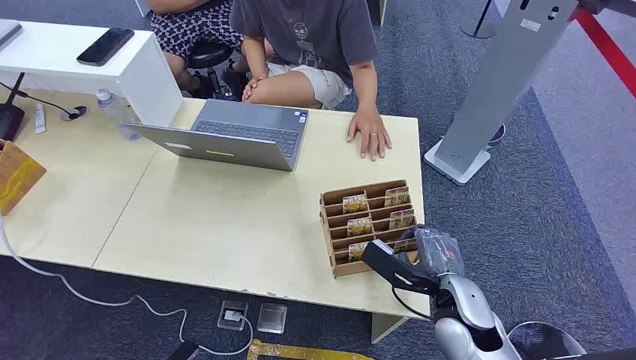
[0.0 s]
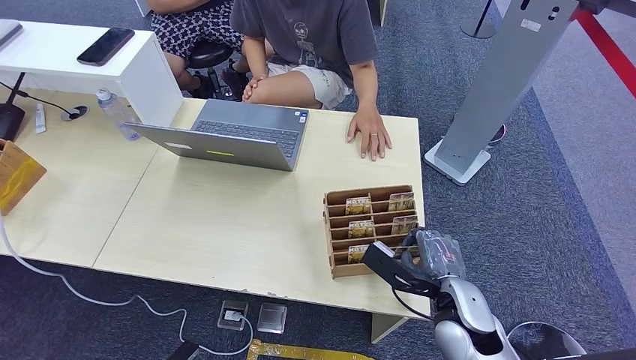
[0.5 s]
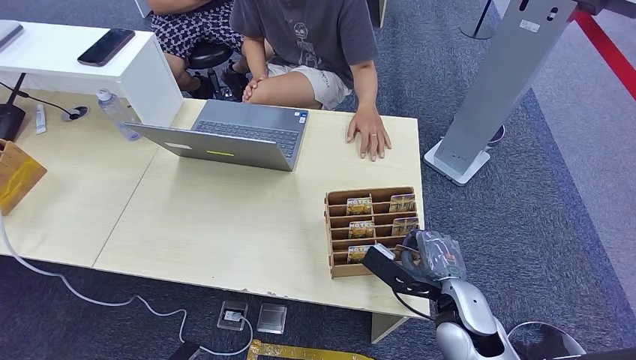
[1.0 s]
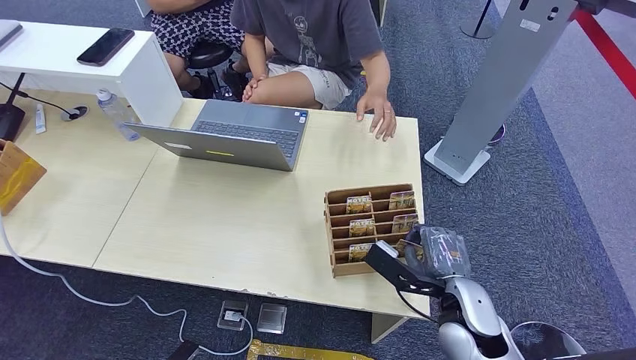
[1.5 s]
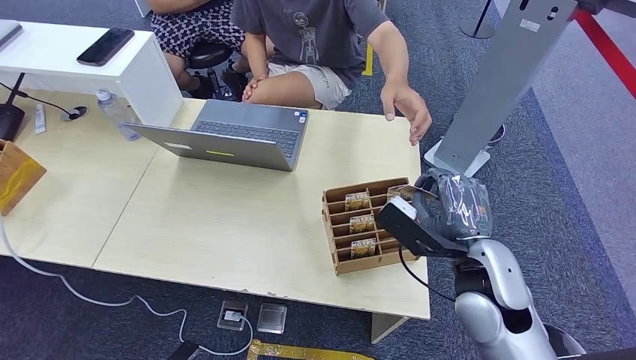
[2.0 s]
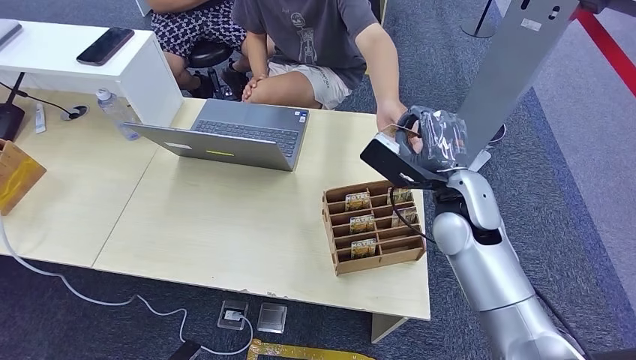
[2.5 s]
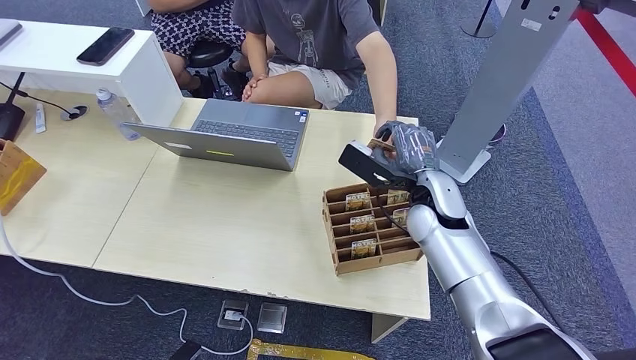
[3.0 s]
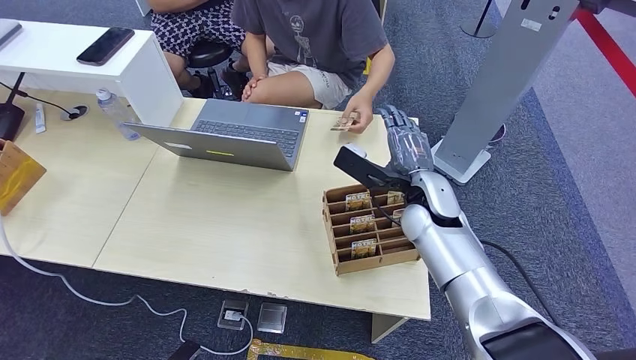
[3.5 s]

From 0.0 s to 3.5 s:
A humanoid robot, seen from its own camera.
Step, from 0.0 s to 1.5 s: Pick up the key card from the card box.
Step, from 2.5 s to 3.5 s: Hand the key card to the target.
From 2.0 s to 3.5 s: The right hand goes roughly 15 cm forward.
